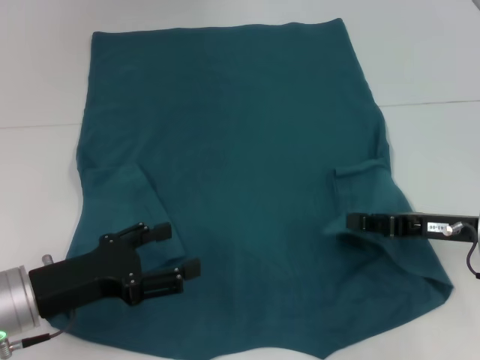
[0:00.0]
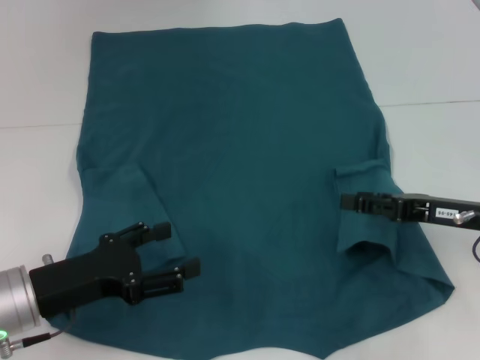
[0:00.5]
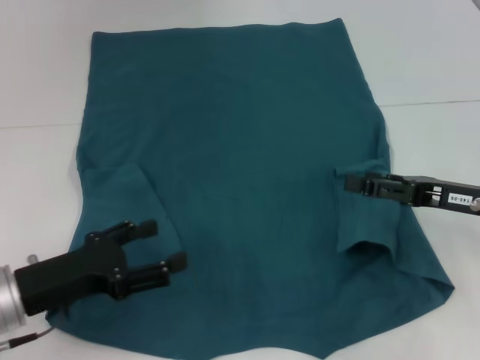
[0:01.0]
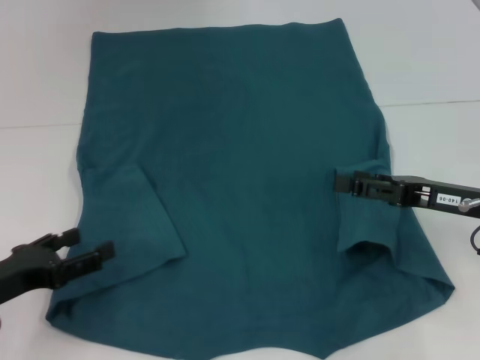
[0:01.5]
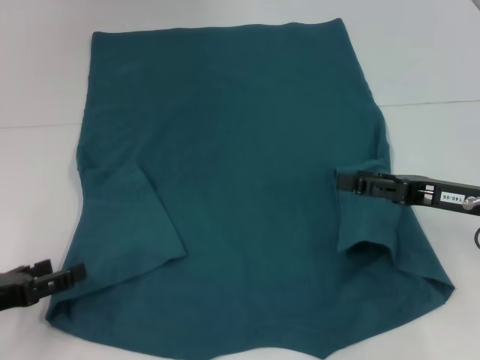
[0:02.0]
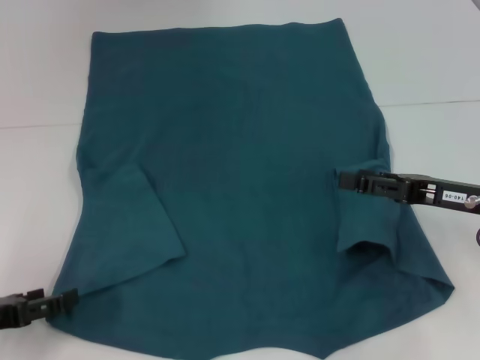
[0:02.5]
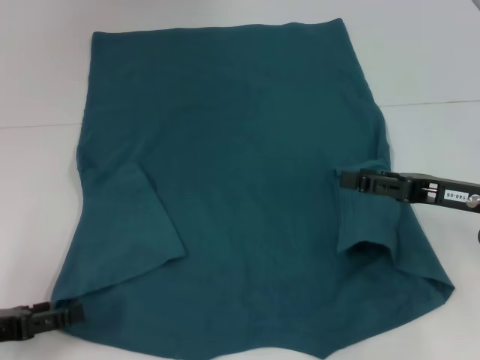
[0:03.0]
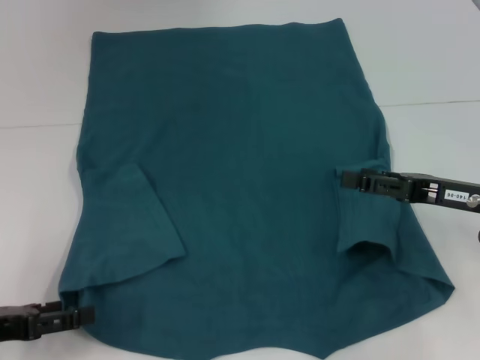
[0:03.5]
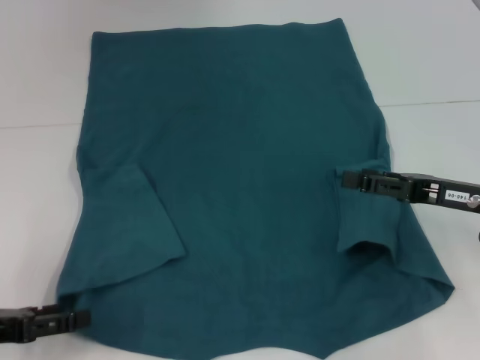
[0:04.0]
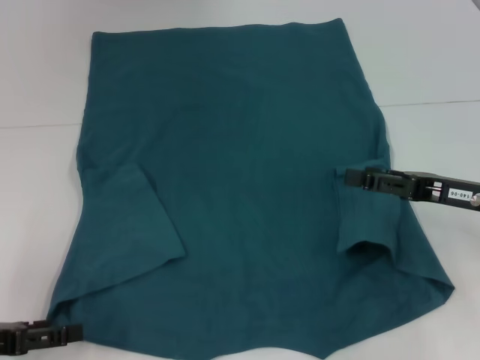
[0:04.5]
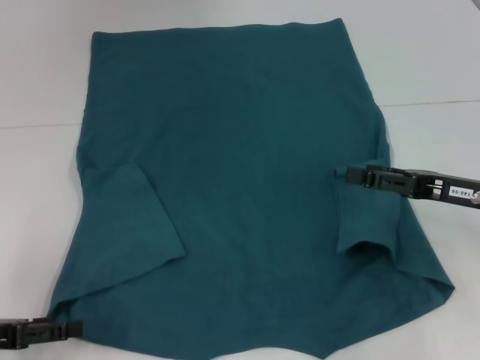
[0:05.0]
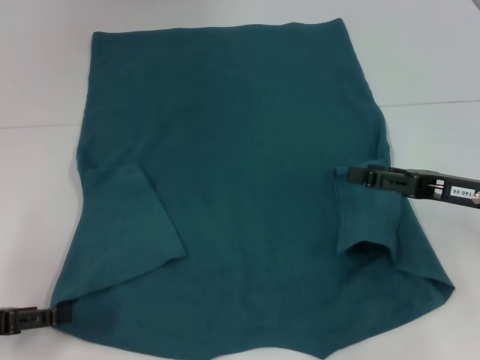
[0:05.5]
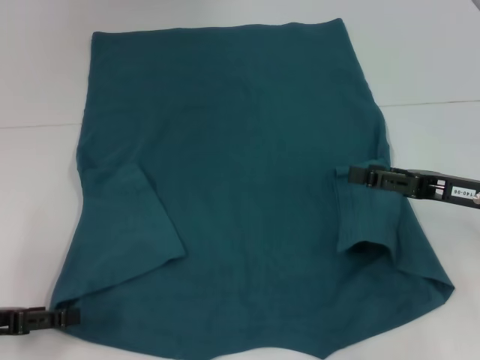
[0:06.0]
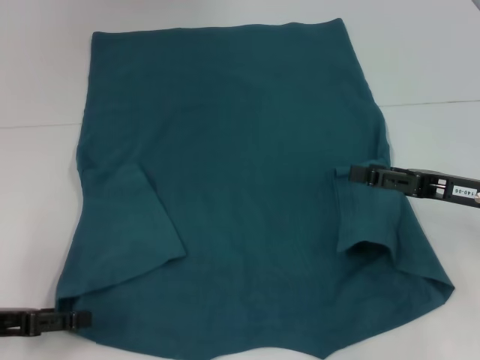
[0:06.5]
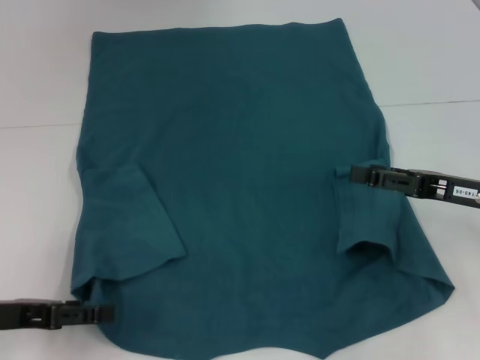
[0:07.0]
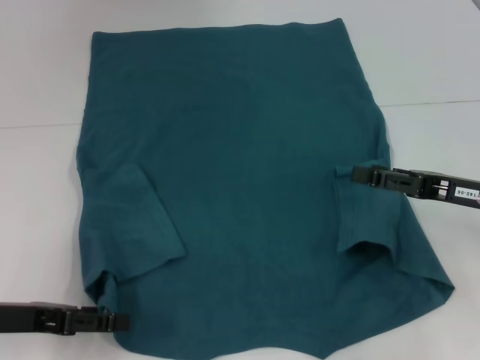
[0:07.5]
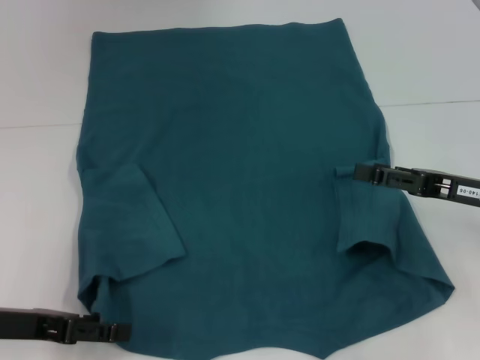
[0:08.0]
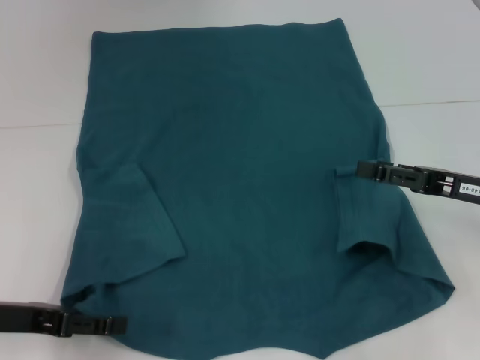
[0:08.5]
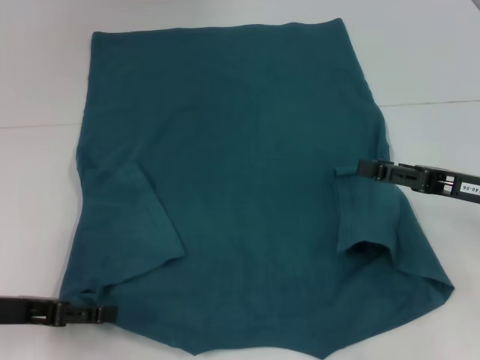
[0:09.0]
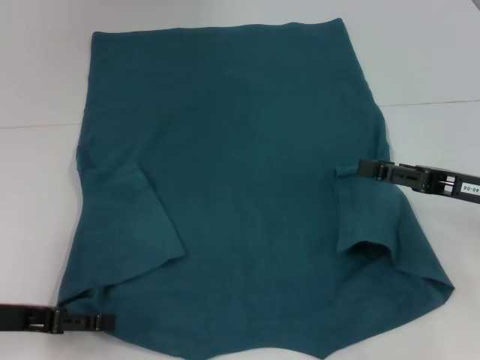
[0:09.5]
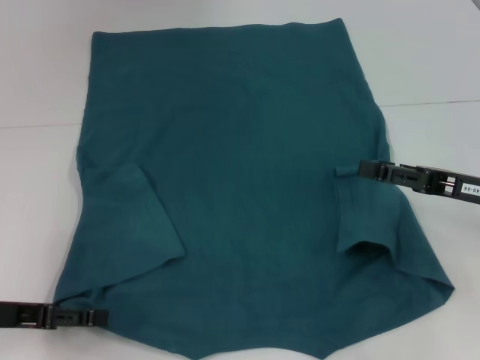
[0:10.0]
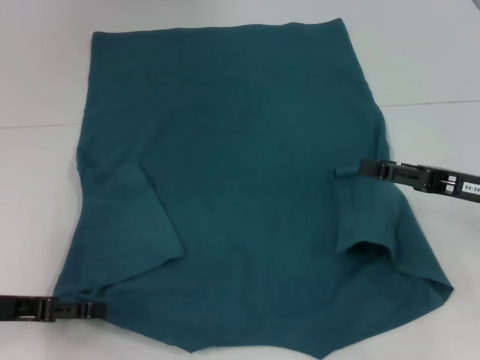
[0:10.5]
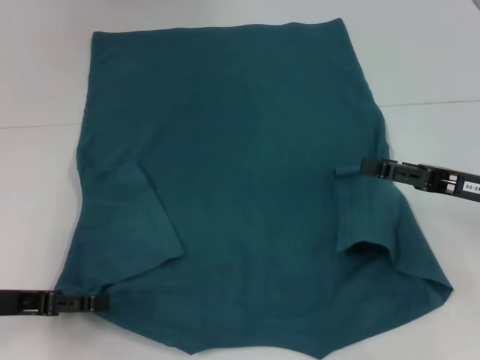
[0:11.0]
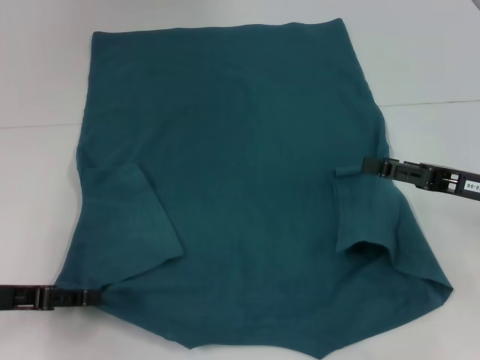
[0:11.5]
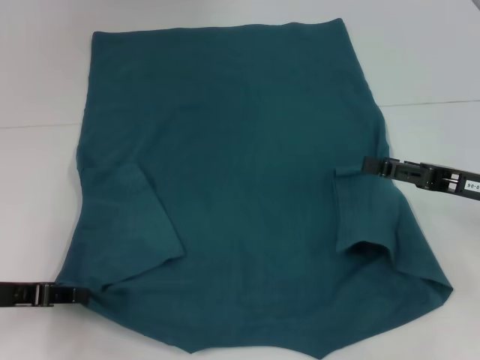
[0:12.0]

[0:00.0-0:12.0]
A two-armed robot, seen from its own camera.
Step, 0:01.0 to 0:11.5: Grab the bottom left corner with your left hand.
0:00.0 to 0:02.0: The left gripper moves to the left, roughly 10 cm. The right gripper opens.
0:02.0 to 0:06.0: There are only small adjustments of the grippers.
0:06.0 to 0:10.0: The grippers move only a little.
0:10.0 to 0:12.0: The left gripper closes.

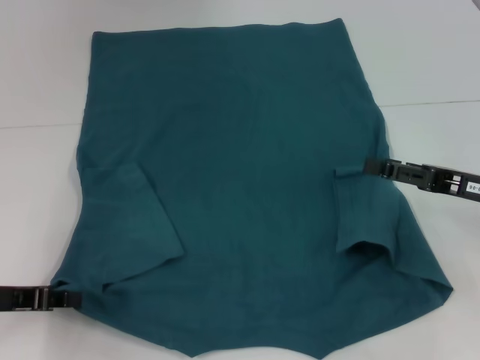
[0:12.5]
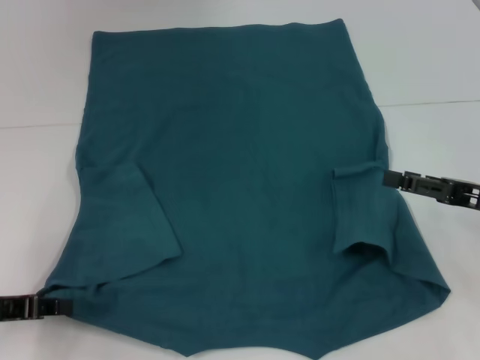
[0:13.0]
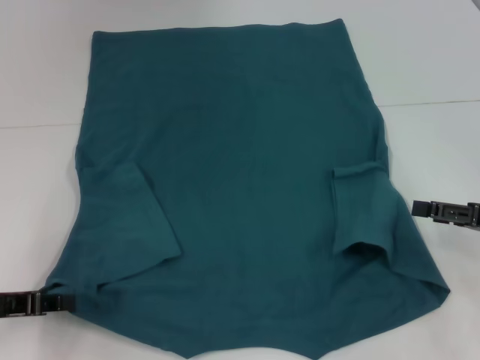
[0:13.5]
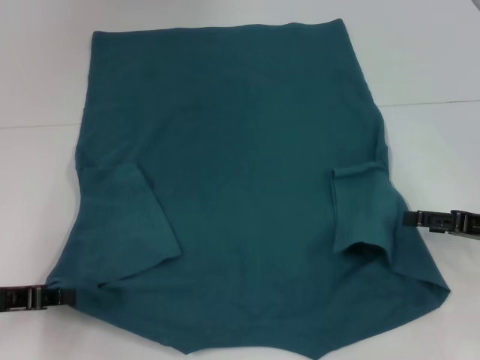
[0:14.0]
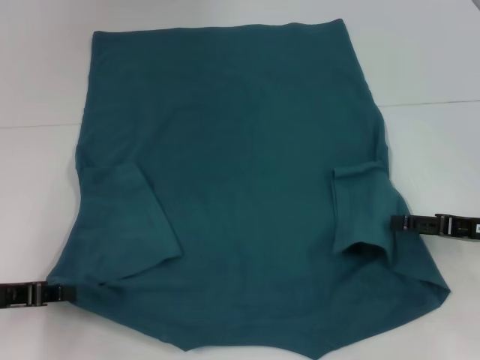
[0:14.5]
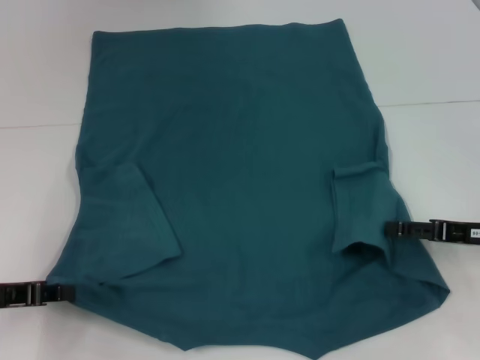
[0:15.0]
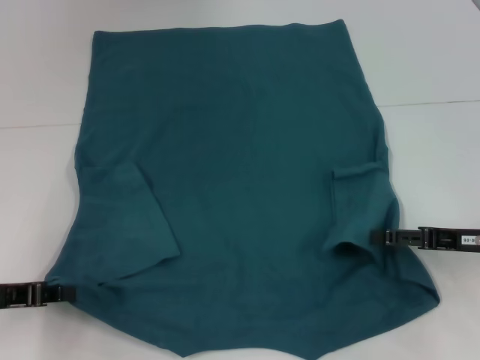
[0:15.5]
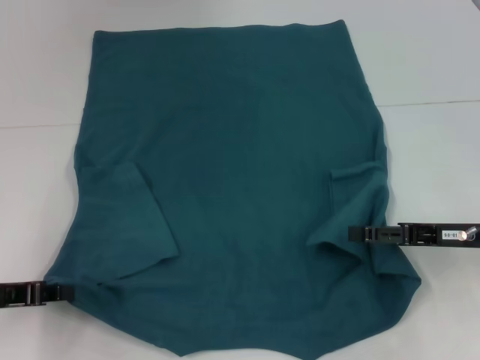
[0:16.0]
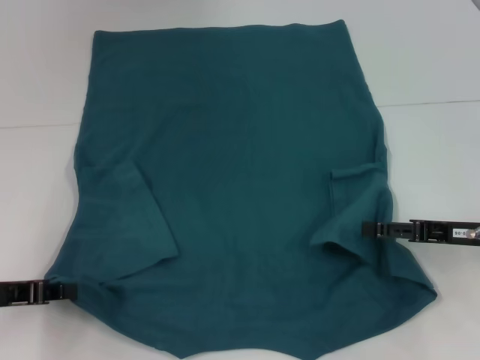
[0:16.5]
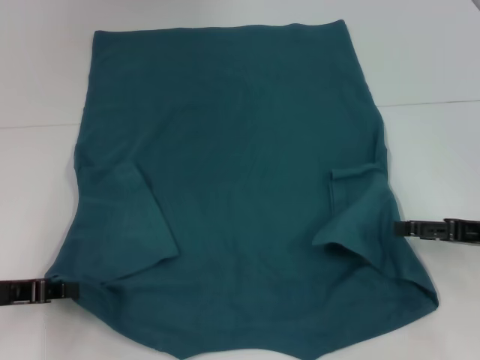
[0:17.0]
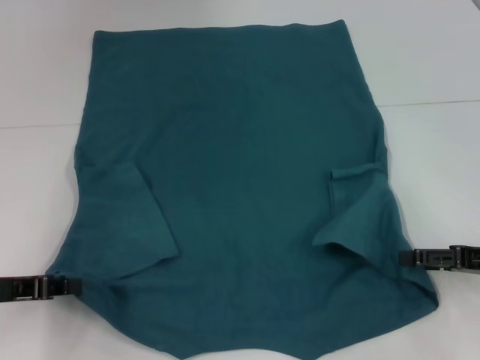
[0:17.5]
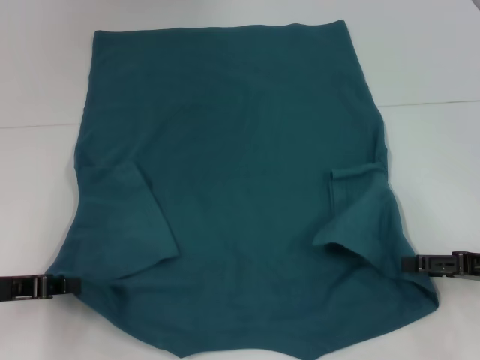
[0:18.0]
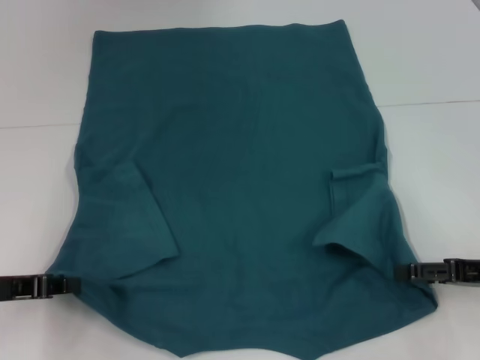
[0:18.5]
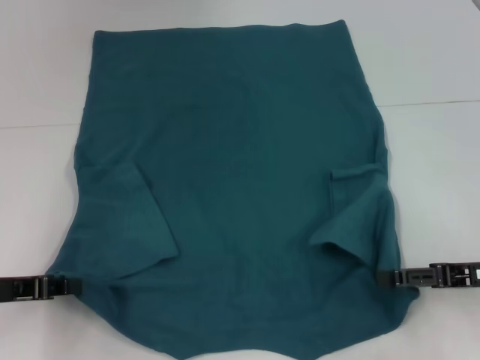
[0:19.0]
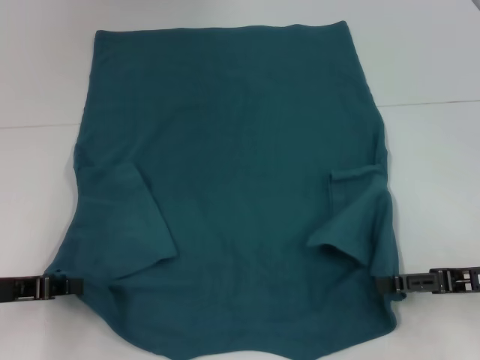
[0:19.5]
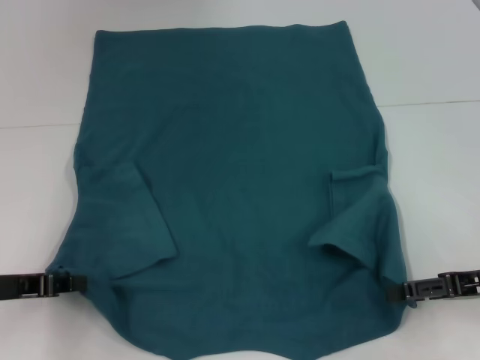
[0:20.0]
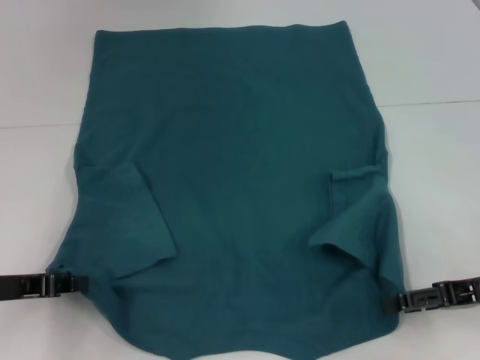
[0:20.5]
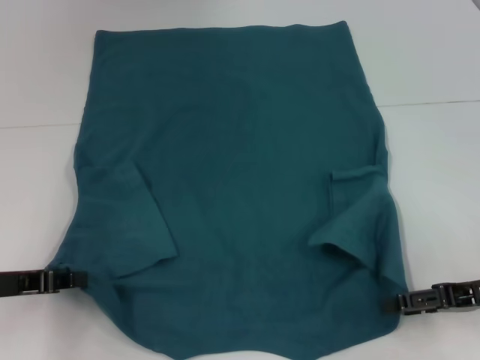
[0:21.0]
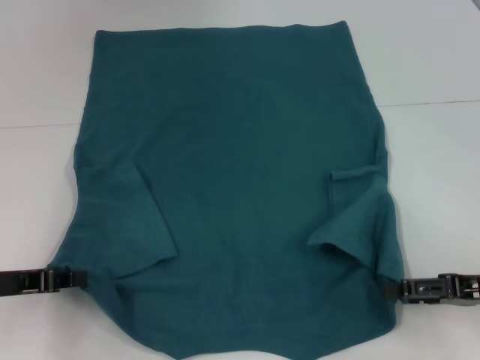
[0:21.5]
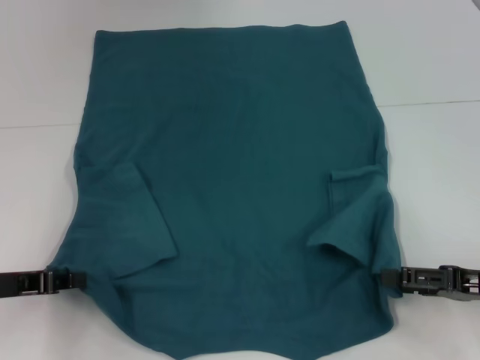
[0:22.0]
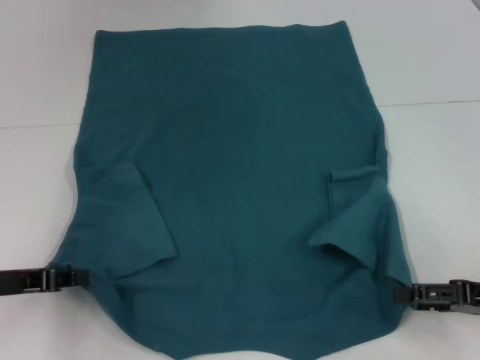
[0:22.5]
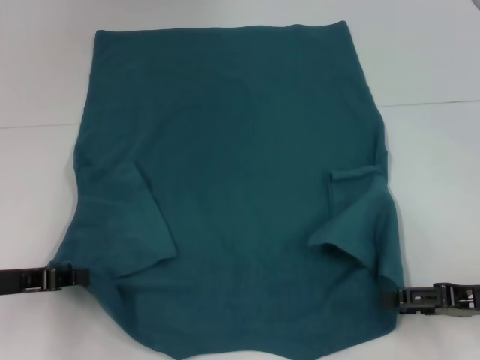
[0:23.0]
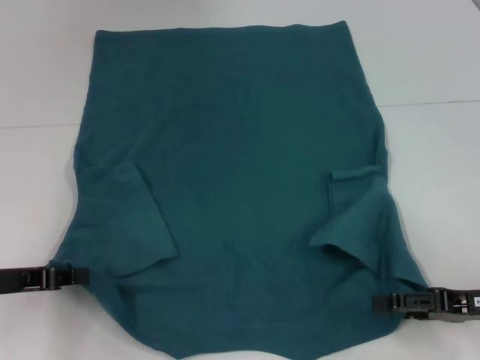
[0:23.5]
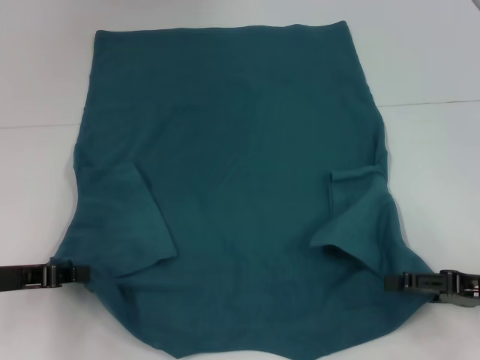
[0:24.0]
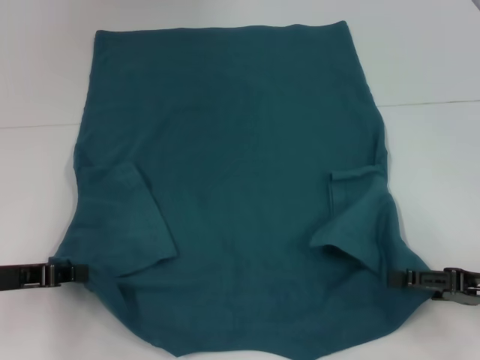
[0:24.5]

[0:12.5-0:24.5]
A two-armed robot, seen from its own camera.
0:14.5 to 0:18.5: The grippers move only a little.
0:18.5 to 0:24.5: The grippers make only small movements.

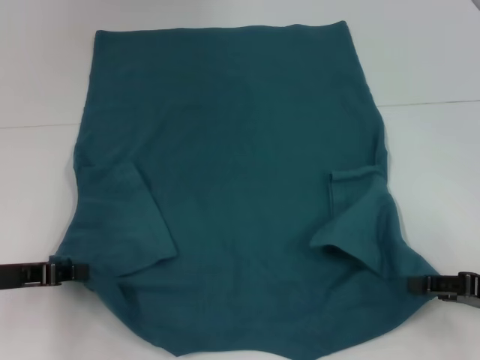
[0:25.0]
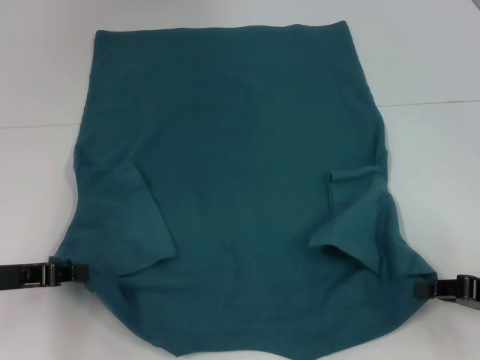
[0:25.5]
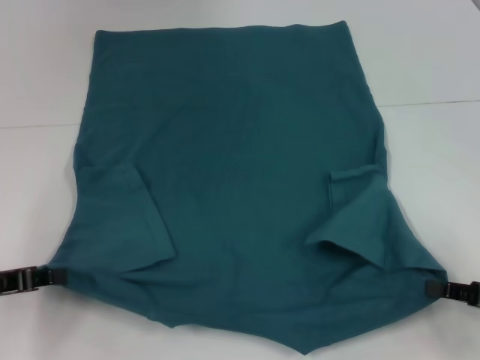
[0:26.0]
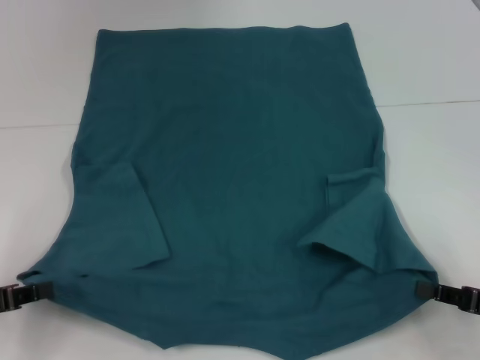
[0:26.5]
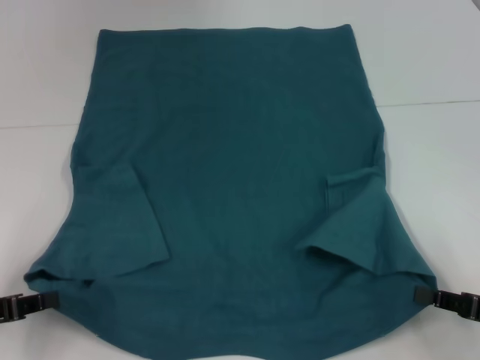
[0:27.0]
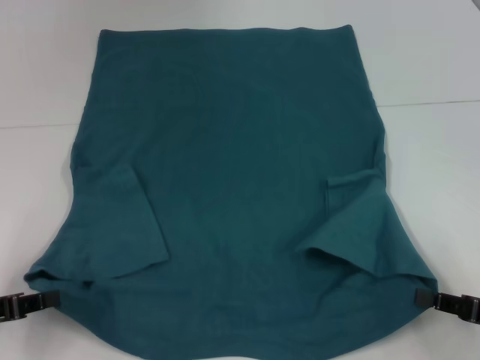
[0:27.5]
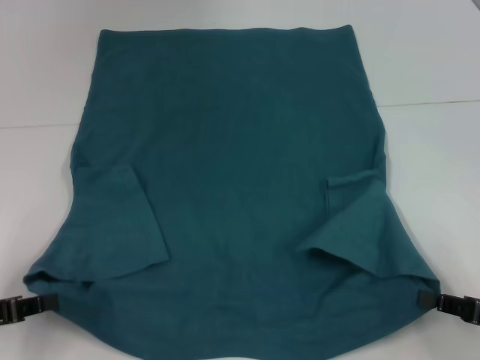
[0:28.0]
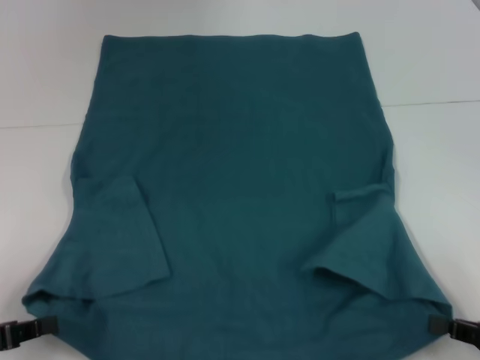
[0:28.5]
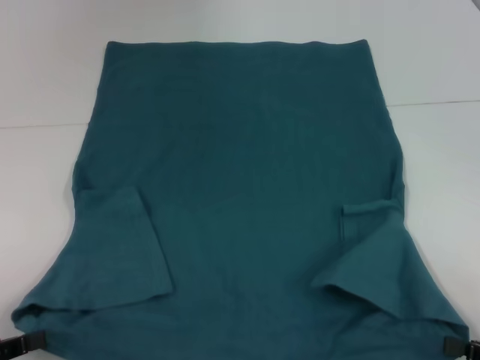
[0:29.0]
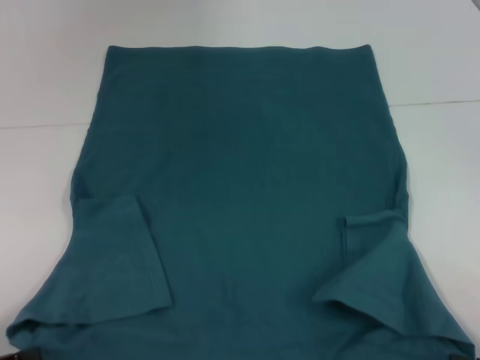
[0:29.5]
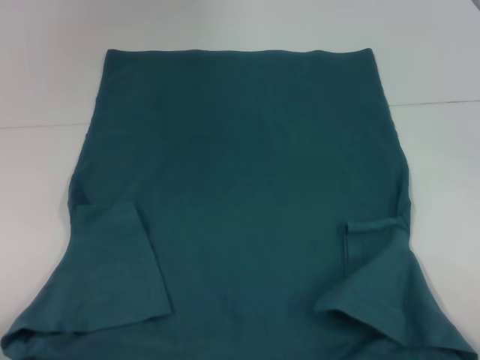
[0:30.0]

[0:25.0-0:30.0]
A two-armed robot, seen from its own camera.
0:25.0 to 0:27.5: The right gripper closes. Meanwhile the left gripper ends up approximately 5 cm from where it was.
0:27.5 to 0:30.0: The grippers both shift backward by roughly 10 cm.
